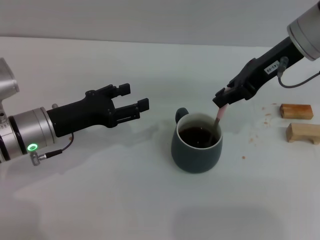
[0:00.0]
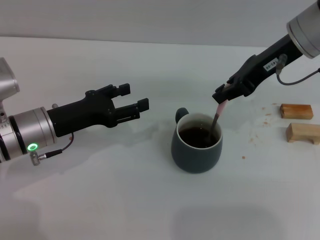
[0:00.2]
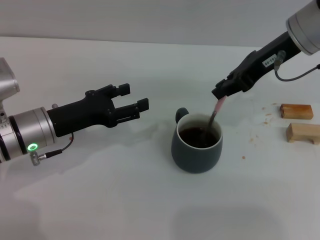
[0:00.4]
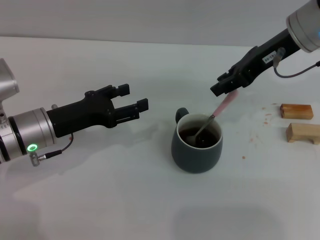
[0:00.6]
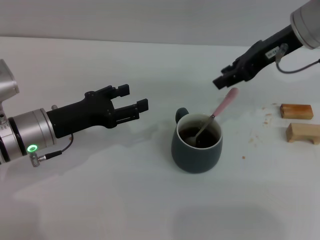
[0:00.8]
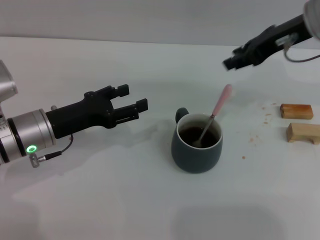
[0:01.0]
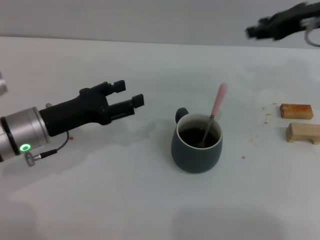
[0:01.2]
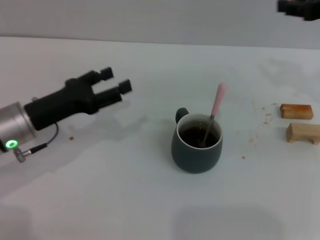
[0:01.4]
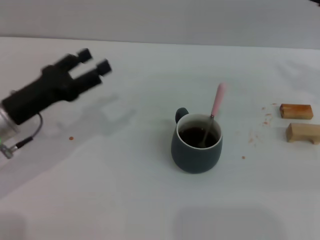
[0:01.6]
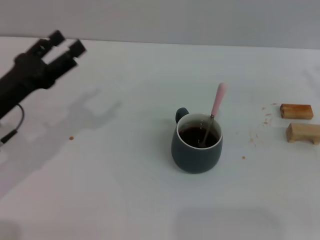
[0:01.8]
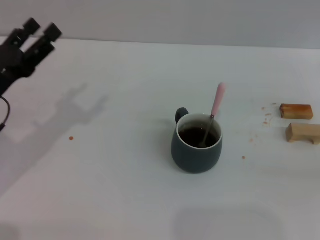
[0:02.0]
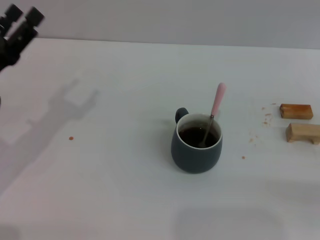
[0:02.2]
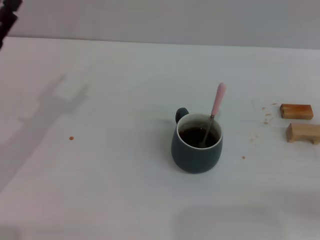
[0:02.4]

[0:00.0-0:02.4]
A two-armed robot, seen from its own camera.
Task of the whole recording: Move the grey cup to the center, lift the pink spoon, stir it three times in the cup, and put the spoon into the cup.
0:00.0 to 0:01.2: The right gripper moves to the right, some 5 cm, and opens.
0:01.2 to 0:02.4: The right gripper goes some 25 cm backward, to the right and downward. The left gripper is displaced to the left by some 5 cm.
